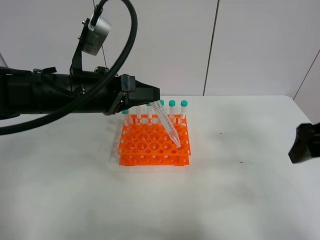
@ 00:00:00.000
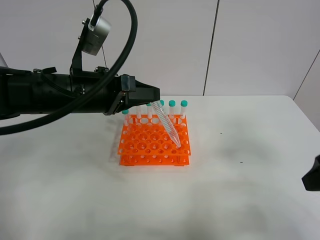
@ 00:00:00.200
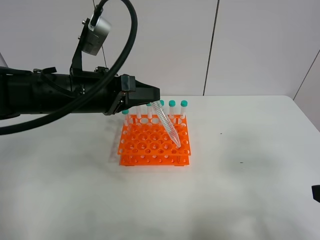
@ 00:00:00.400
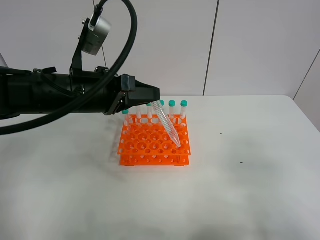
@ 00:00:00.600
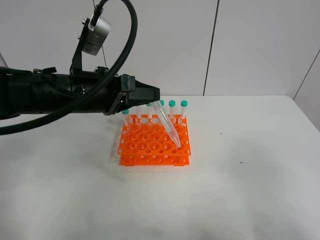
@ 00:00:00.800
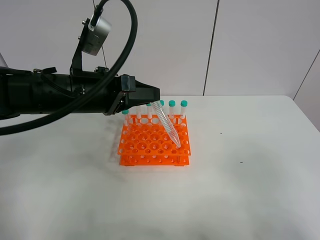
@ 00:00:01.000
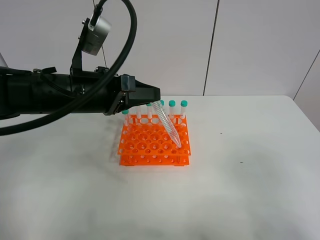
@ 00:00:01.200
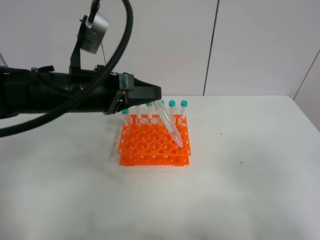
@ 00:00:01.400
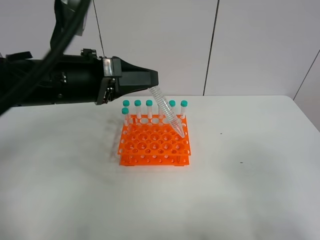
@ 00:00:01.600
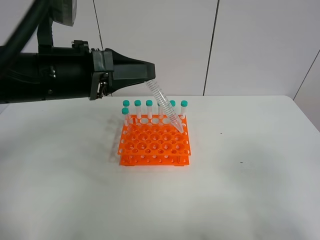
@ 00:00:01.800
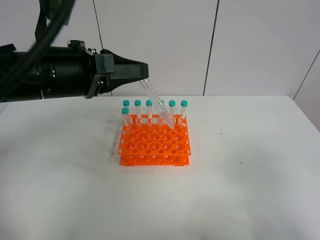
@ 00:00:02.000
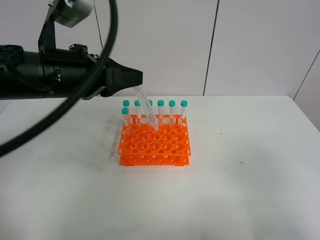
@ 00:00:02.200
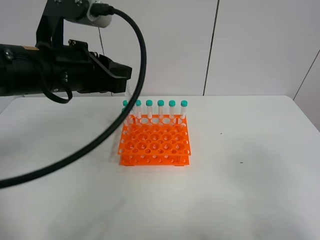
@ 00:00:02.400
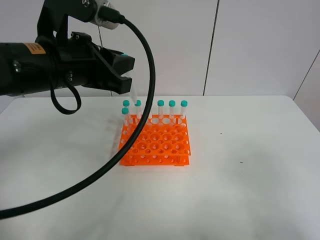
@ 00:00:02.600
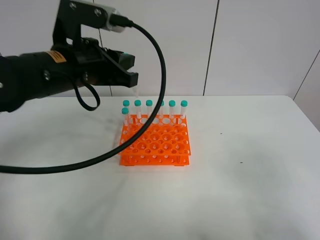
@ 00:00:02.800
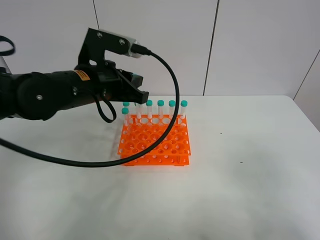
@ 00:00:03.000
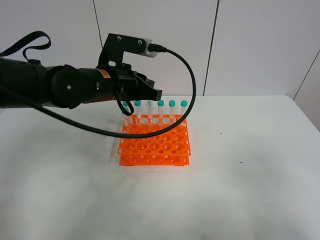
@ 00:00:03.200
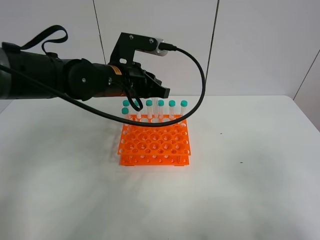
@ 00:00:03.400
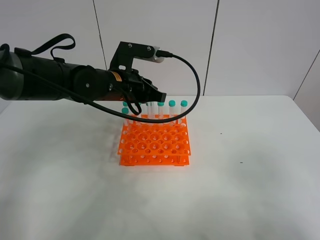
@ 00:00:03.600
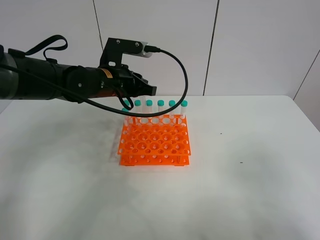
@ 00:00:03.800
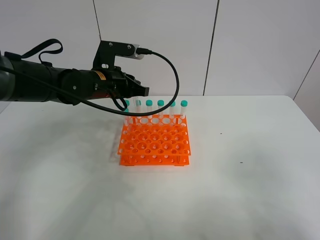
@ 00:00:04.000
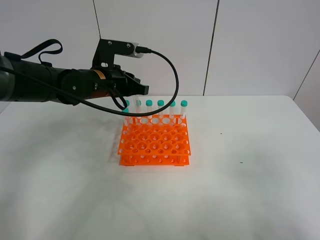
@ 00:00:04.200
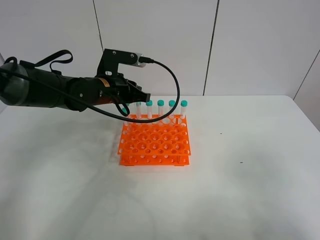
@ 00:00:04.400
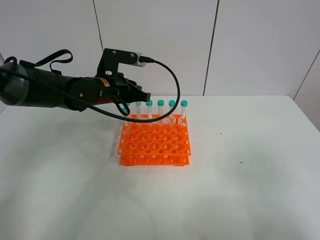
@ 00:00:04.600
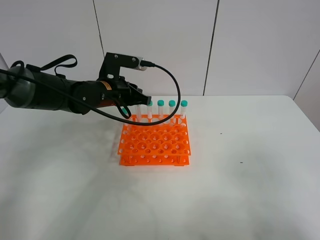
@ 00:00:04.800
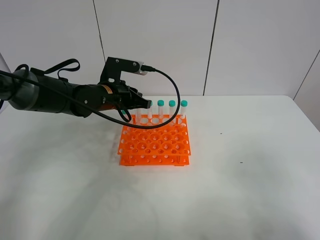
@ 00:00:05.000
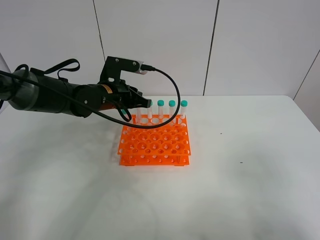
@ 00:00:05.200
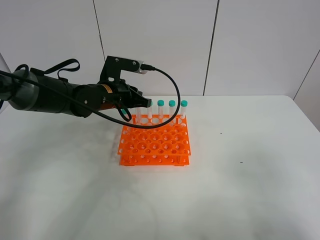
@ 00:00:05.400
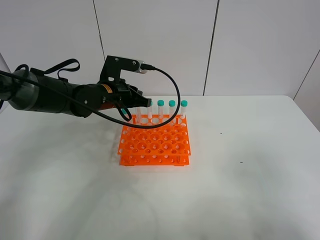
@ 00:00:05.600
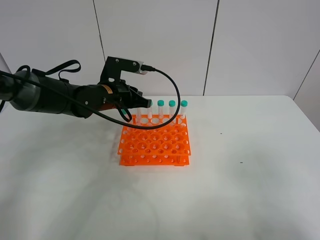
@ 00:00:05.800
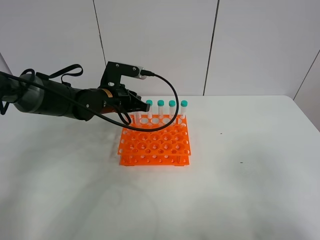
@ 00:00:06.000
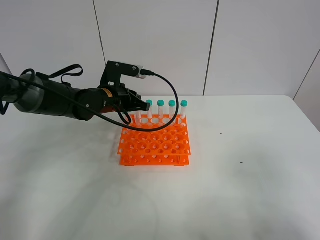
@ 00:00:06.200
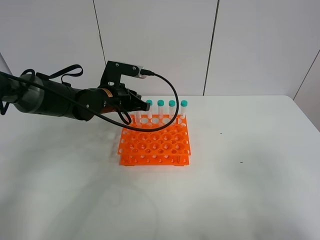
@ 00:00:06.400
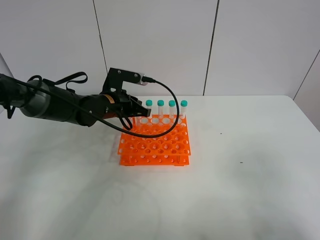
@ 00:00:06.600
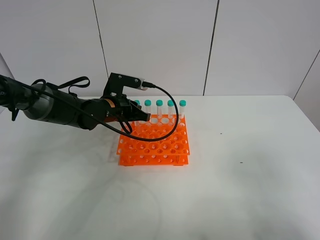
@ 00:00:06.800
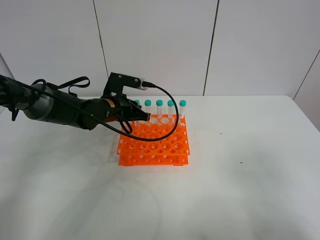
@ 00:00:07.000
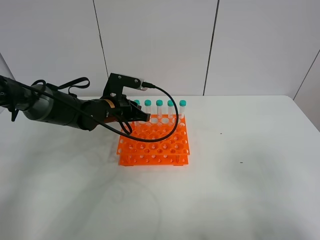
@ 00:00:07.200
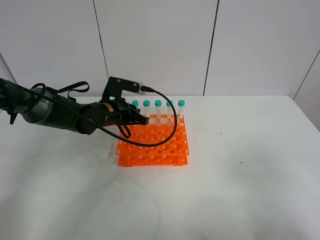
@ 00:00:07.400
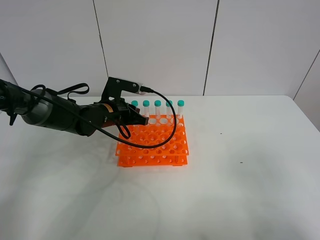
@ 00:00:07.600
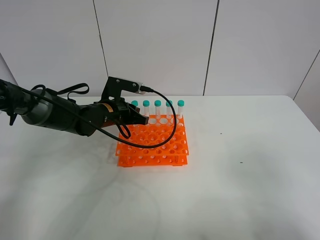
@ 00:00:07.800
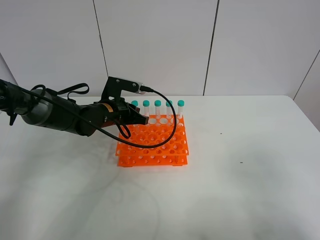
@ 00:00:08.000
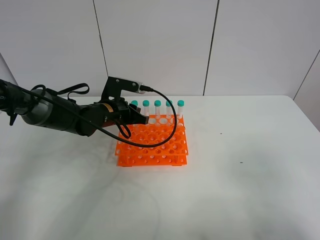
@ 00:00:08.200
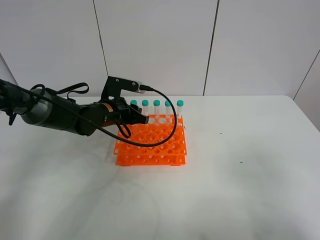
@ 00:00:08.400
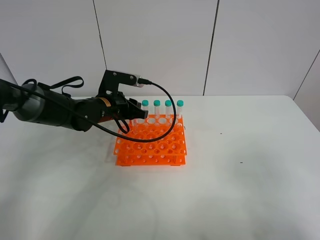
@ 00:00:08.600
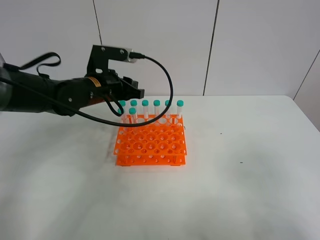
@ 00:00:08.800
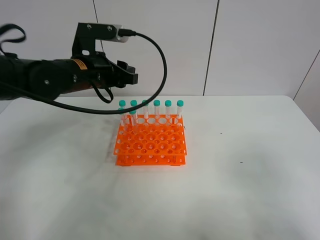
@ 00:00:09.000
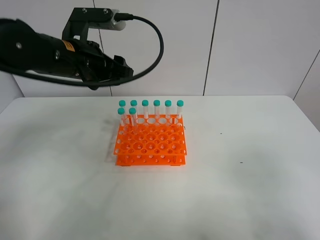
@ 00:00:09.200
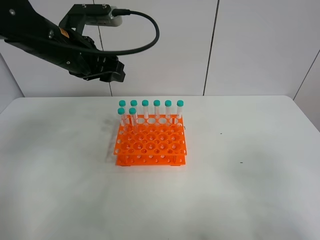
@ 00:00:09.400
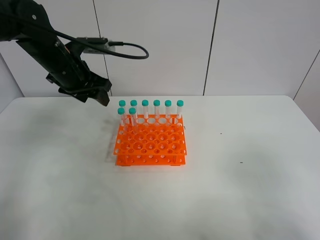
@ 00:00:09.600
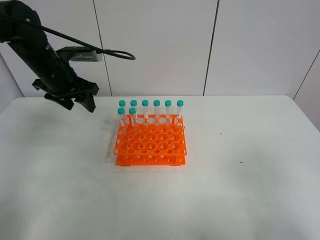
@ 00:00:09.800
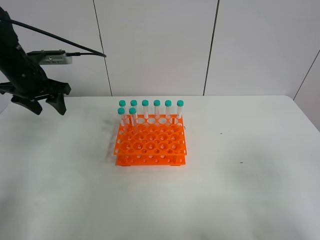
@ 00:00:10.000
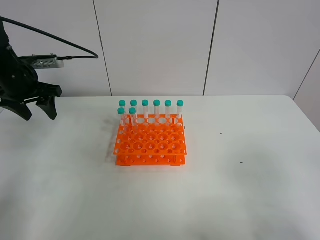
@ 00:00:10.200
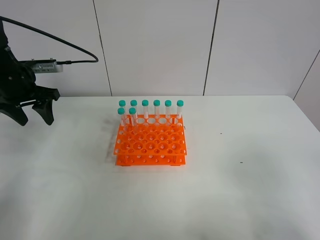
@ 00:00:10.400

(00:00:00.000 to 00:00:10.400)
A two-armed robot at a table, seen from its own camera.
Task of the whole recording: Put the test tube on the table back onto the test tube rack.
Step, 00:00:00.000 - 00:00:09.000: Place the test tube on the test tube rack with the left gripper.
00:00:00.000 - 00:00:01.400: The right gripper travels backward by some 15 cm.
00:00:03.000 - 00:00:04.400: The left gripper heads forward and downward, covering about 10 cm.
00:00:04.400 - 00:00:06.000: The grippers stay close to where they were, moving slightly.
00:00:06.000 - 00:00:07.400: The grippers stay close to where they were, moving slightly.
00:00:07.400 - 00:00:09.000: The left gripper goes approximately 15 cm upward, and opens up.
00:00:09.000 - 00:00:10.400: The left gripper shifts some 15 cm to the left.

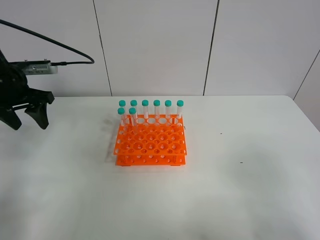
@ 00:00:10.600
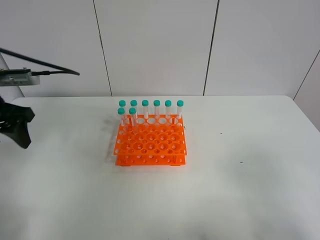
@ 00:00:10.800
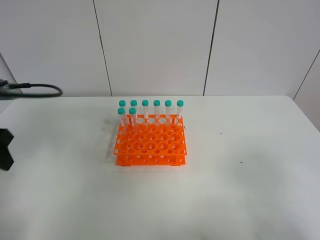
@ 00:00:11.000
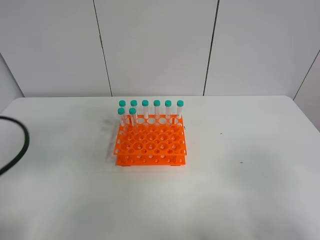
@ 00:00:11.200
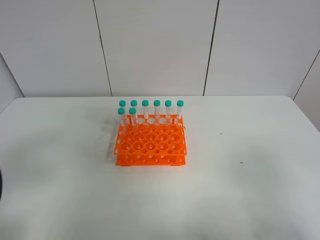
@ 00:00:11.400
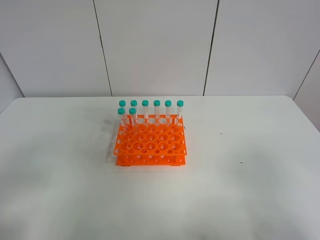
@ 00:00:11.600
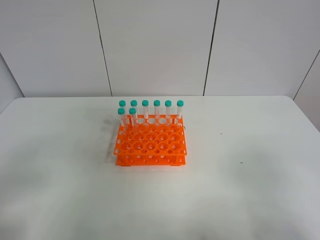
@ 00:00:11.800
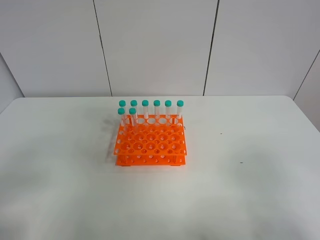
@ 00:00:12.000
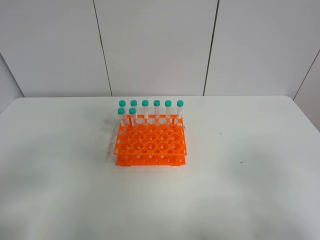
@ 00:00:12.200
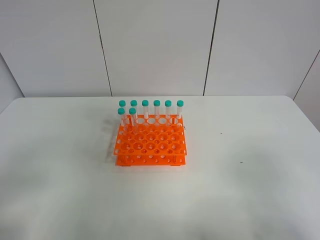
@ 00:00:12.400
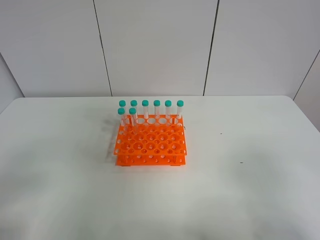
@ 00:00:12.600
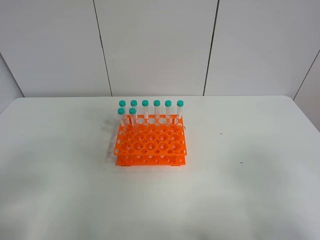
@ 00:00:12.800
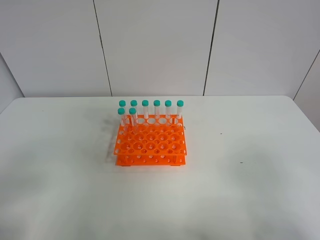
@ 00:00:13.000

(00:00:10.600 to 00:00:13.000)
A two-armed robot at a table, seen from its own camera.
Task of the whole recording: Put the test tube on the table back onto the test tube rack.
00:00:10.600 - 00:00:11.800: The left gripper is displaced backward by some 30 cm.
